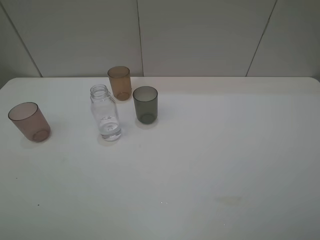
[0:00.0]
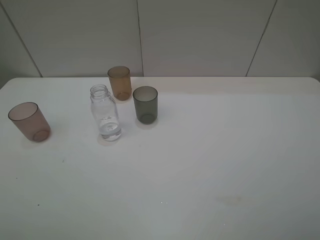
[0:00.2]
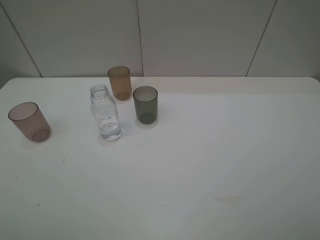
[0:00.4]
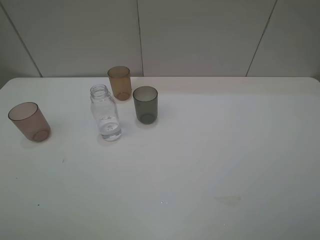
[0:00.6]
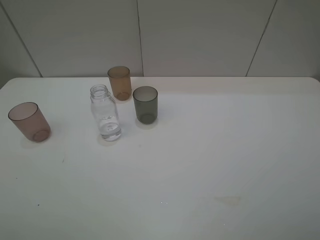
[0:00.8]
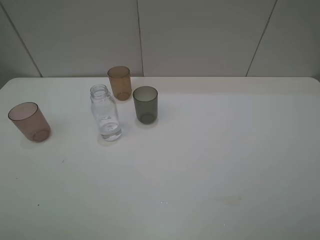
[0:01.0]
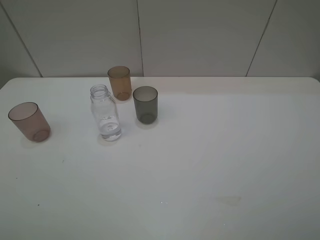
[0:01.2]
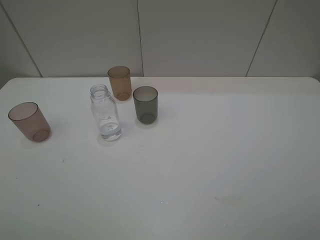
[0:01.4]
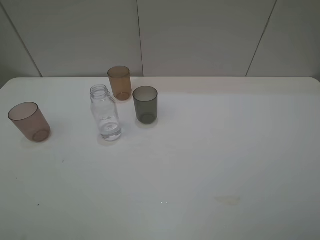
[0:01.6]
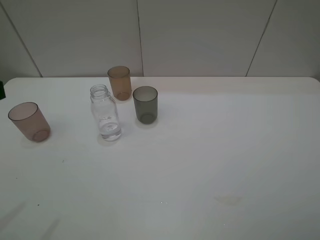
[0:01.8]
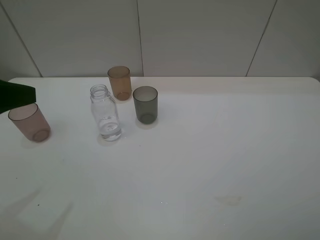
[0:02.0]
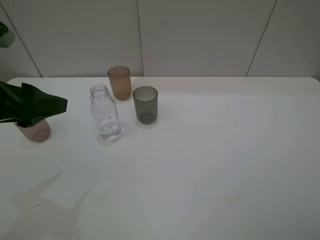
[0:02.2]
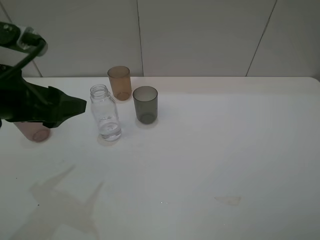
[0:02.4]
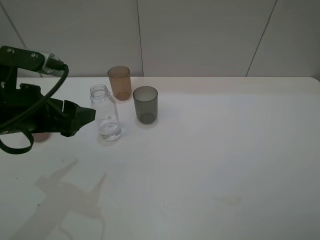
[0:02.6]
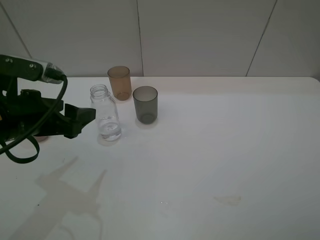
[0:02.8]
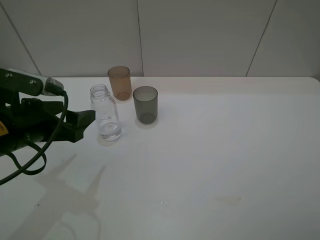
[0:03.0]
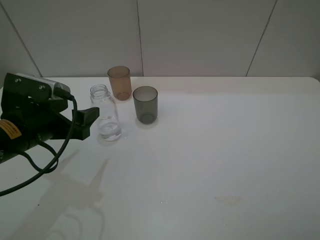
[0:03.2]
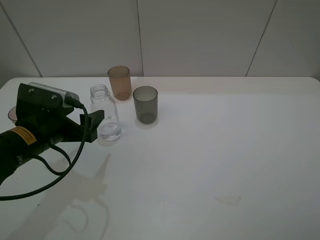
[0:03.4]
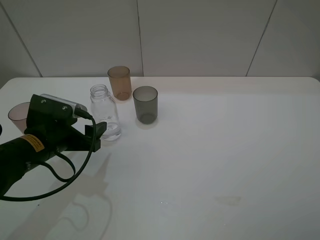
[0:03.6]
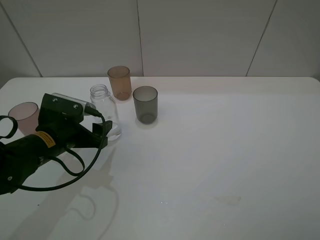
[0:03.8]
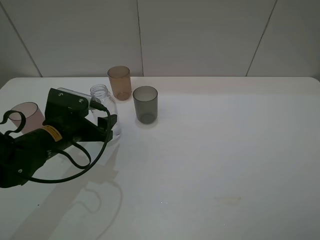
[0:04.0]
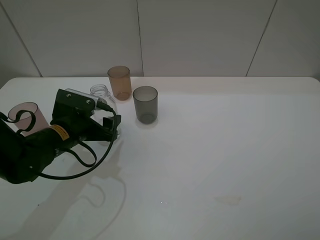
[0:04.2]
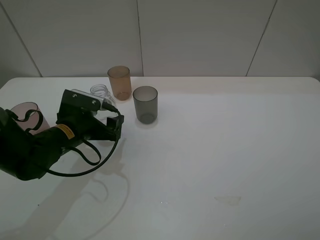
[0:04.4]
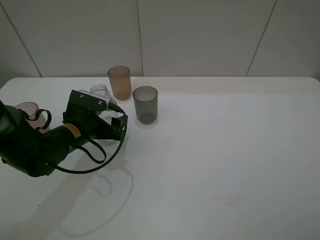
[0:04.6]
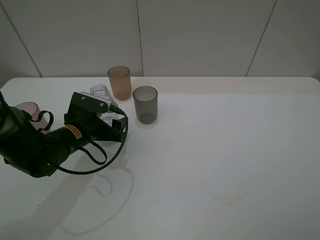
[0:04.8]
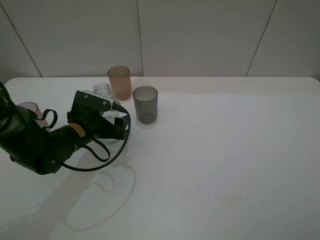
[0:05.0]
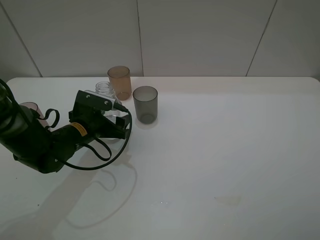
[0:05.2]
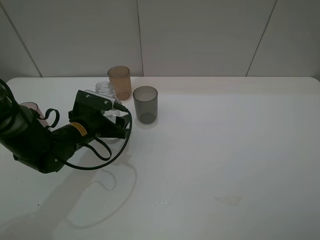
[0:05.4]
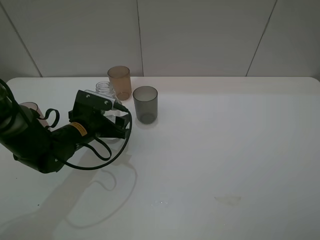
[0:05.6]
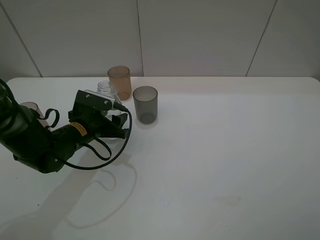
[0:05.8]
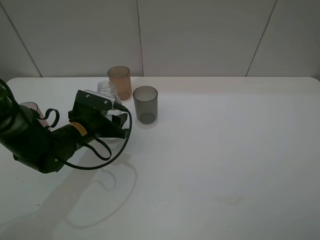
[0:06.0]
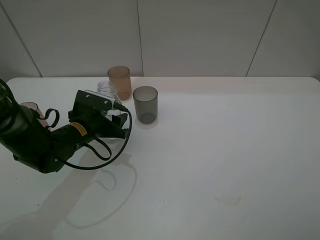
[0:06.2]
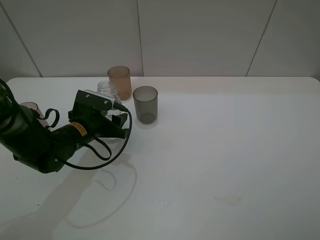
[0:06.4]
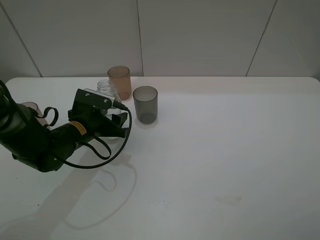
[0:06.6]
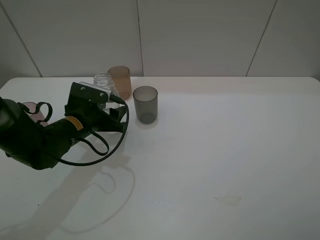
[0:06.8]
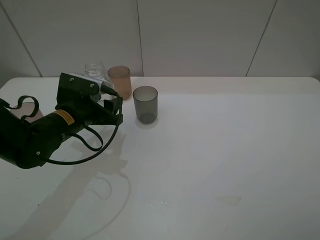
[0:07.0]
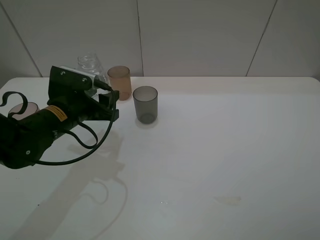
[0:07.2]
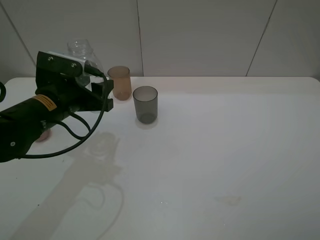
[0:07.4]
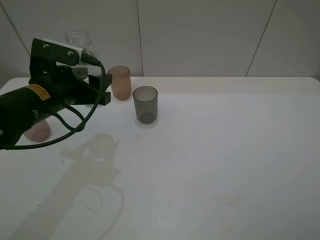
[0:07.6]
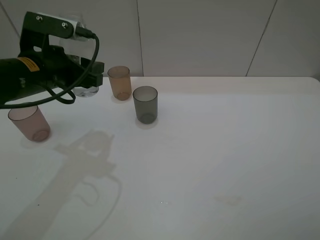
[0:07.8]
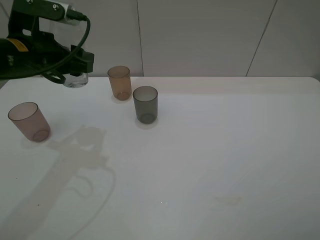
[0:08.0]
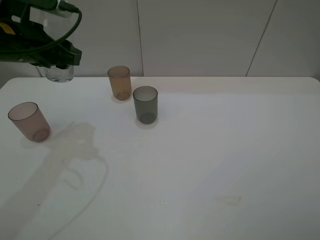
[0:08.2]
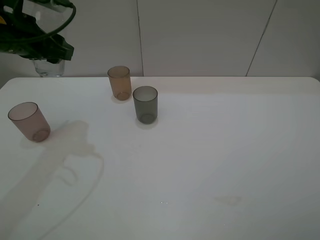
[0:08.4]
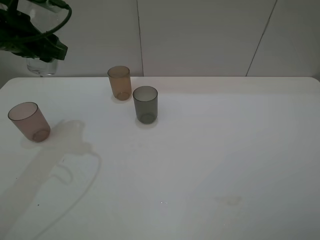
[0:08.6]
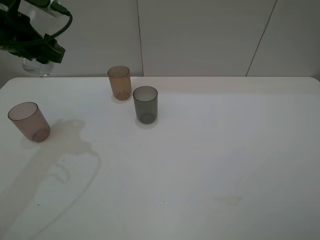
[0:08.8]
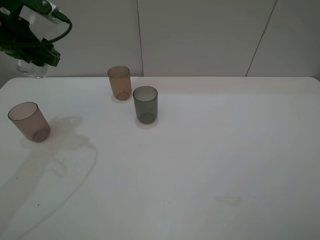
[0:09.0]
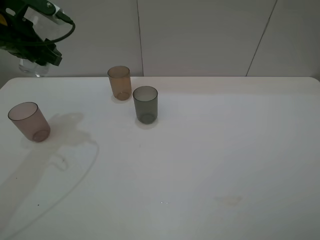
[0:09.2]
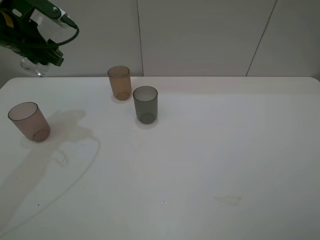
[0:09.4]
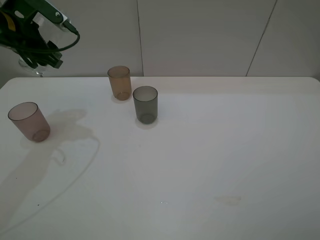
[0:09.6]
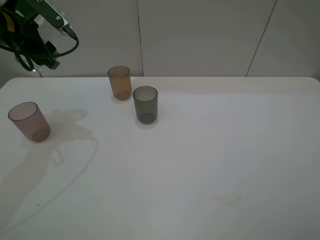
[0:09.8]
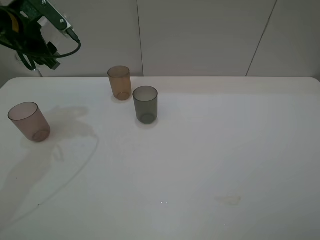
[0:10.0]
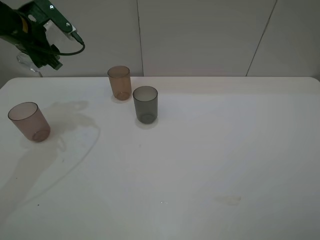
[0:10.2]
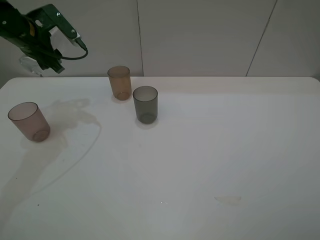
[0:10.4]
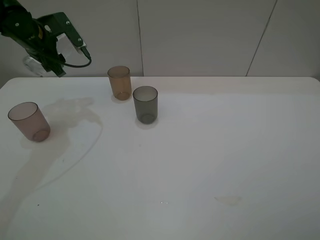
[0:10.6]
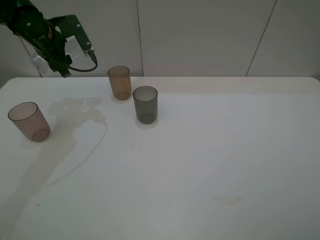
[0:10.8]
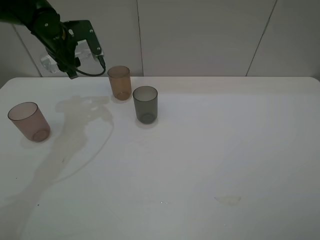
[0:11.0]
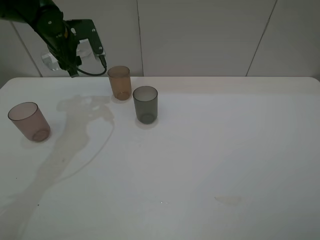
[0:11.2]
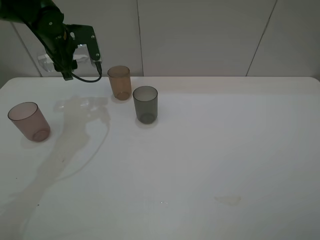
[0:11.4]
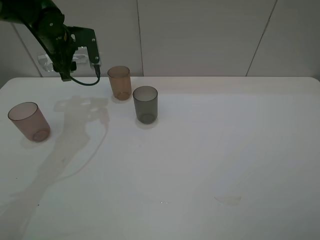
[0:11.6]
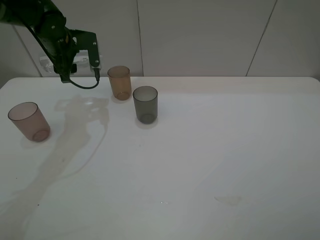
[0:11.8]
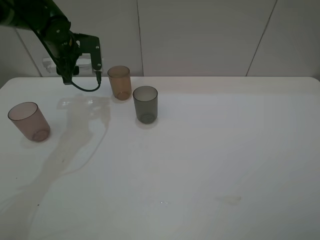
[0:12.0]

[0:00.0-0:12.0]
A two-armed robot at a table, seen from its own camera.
Task of the whole recording: pick up the bottle filled with water and pour water into the middle cup of the three cups.
Step, 0:00.0 to 0:05.2: Grasp the transparent bottle with the left gripper.
0:01.6 to 0:03.0: The left gripper moves downward, forward and to the right, approximately 20 cm.
0:03.0 to 0:04.4: The left gripper moves downward and forward, about 10 cm.
0:04.4 to 0:06.0: The left gripper closes.
0:06.0 to 0:07.6: The left gripper heads upward, covering about 10 cm.
0:07.6 to 0:09.0: The left gripper goes approximately 15 cm forward, to the left and upward.
0:09.0 to 0:10.4: The left gripper goes approximately 10 cm forward.
0:10.4 to 0:12.0: The left gripper heads to the right, covering some 5 cm.

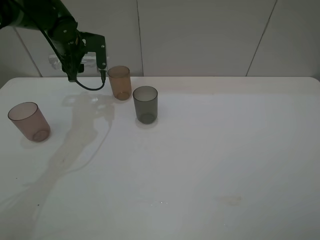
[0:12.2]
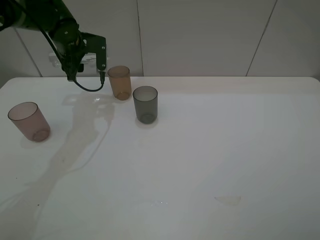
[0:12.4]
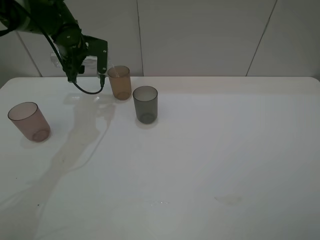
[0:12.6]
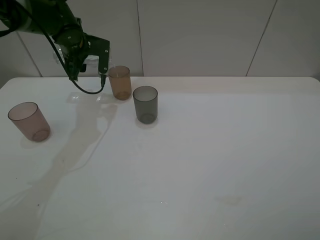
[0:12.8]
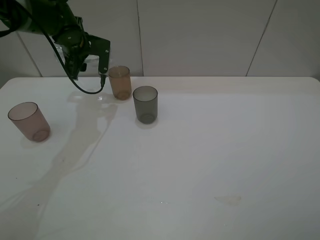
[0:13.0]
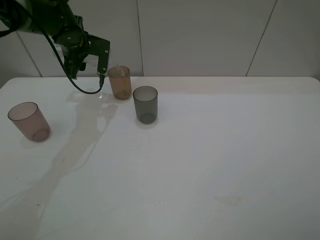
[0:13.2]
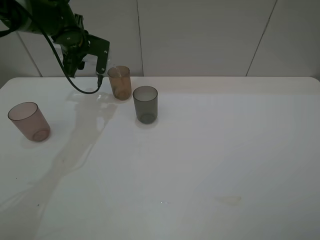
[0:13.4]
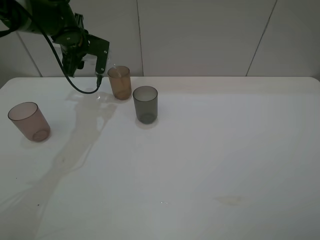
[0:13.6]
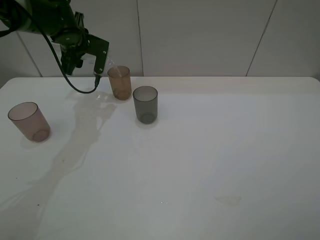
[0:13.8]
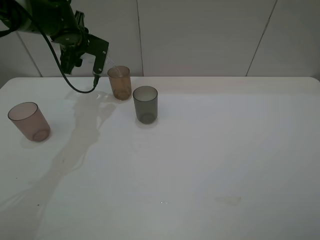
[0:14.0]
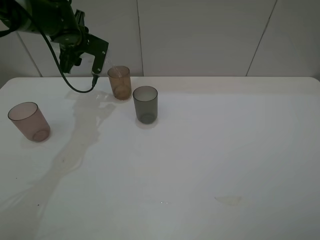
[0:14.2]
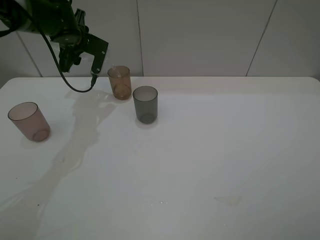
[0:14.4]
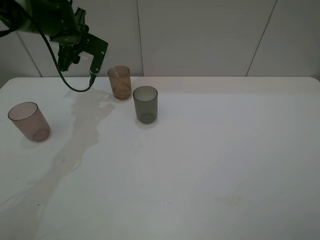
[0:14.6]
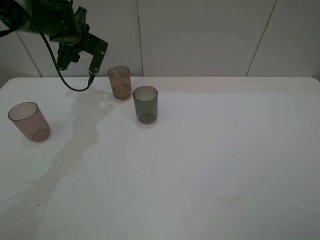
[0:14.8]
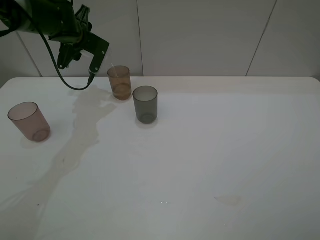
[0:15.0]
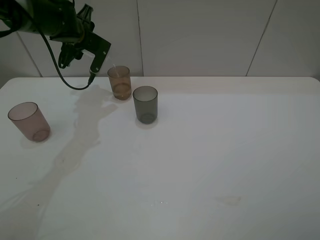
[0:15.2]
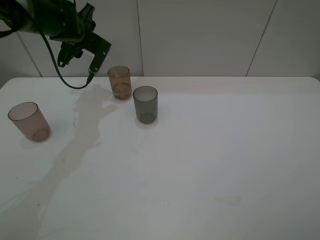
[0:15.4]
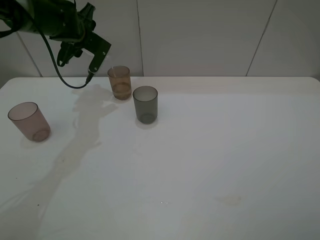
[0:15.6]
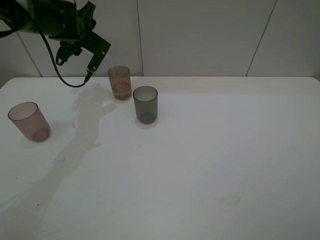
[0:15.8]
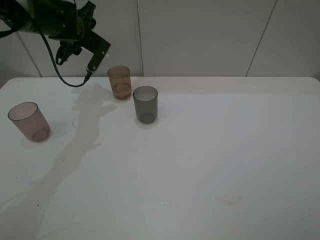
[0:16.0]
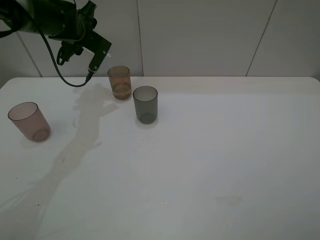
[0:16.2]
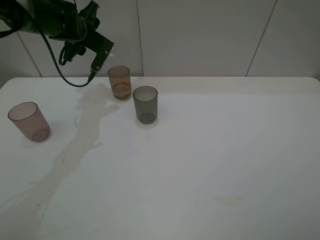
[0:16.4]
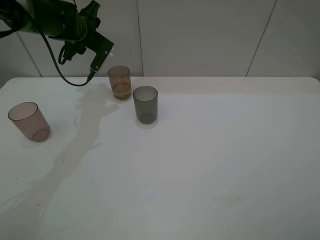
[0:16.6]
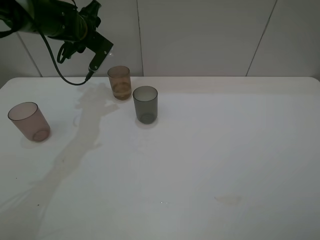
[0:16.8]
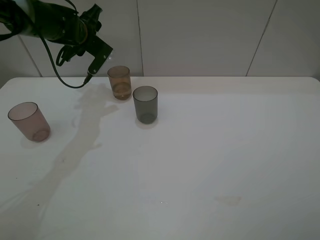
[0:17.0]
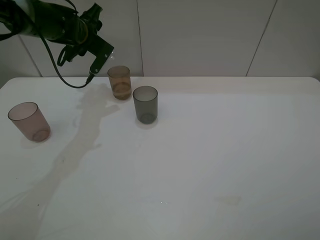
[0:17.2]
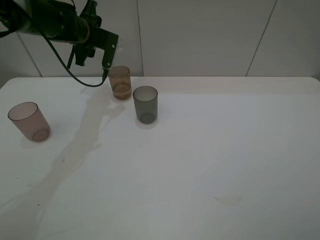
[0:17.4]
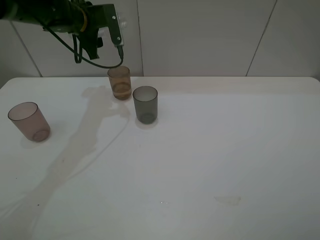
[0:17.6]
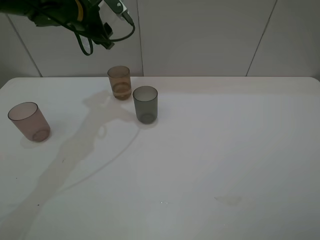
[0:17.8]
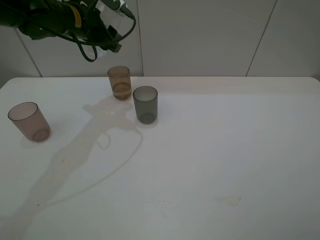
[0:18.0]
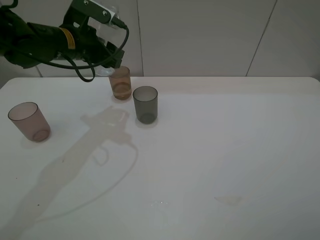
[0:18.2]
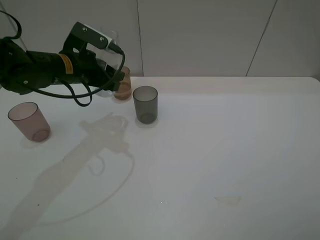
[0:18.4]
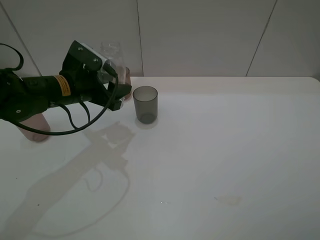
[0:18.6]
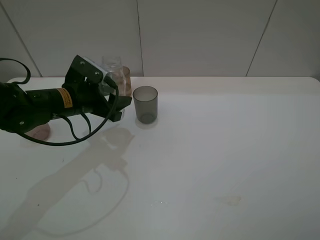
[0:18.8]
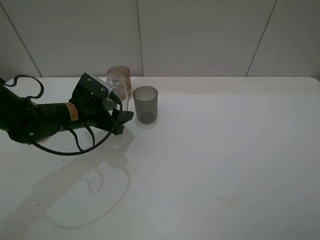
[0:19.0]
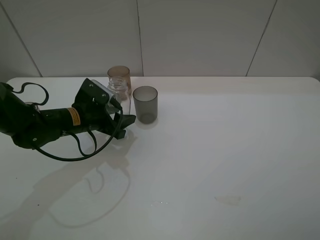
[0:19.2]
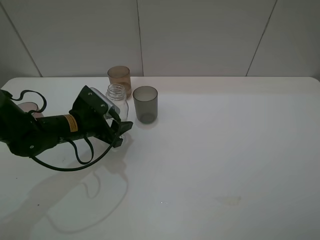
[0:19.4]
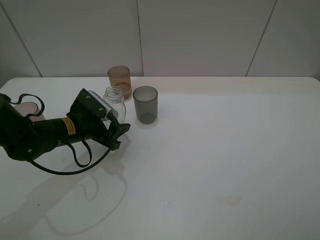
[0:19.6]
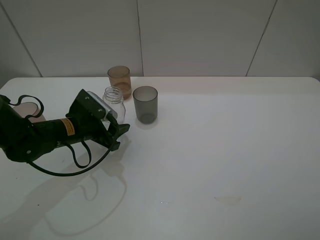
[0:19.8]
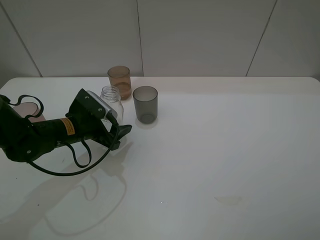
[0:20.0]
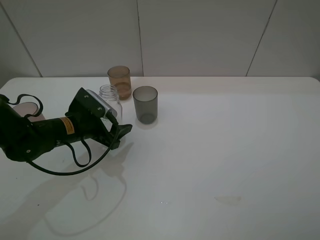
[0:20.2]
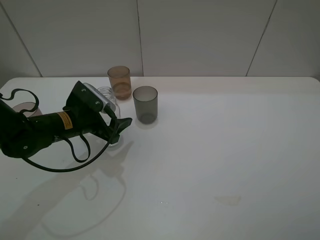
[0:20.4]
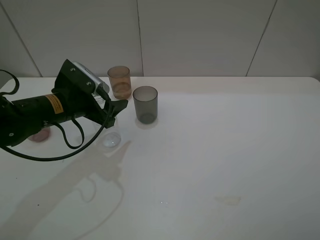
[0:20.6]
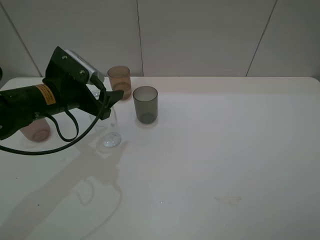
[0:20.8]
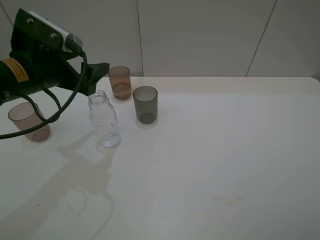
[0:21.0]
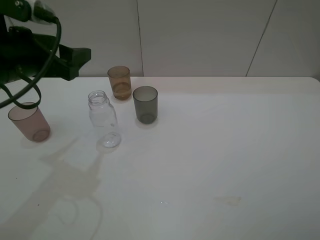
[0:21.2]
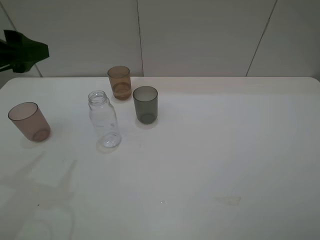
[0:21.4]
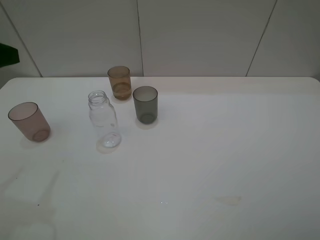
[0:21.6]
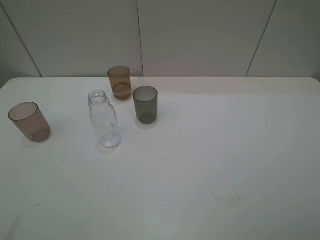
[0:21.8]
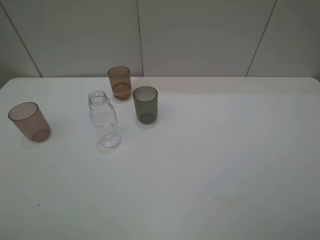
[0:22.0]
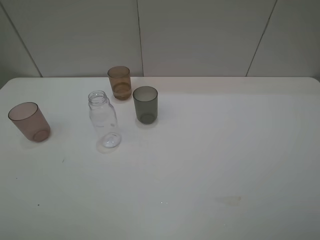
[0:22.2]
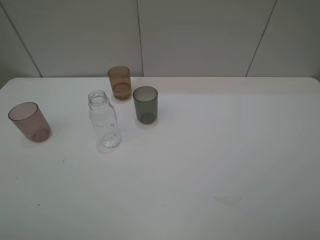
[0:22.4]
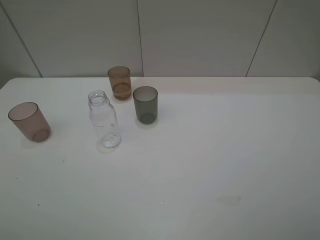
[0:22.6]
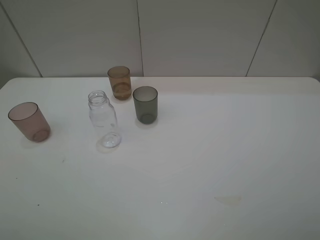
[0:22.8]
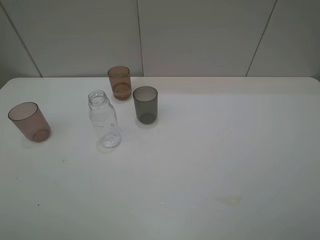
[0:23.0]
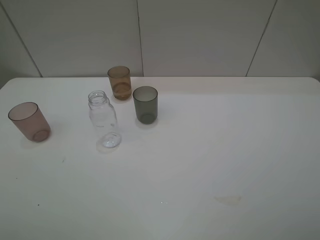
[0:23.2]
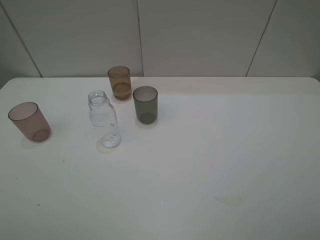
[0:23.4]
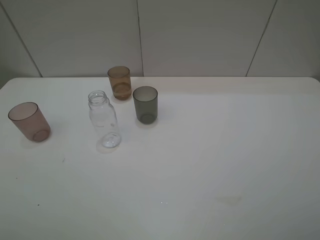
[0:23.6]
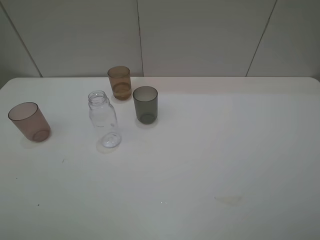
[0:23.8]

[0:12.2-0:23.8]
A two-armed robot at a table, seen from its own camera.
Task of the whole recording: pick up the bottle filled with water and pour water into the middle cup of the three cups.
Step, 0:12.4 to 0:21.0: Place the transparent bottle with the left gripper.
0:12.2 to 0:13.6: The grippers stay close to where they were, moving slightly.
0:13.6 to 0:15.0: The grippers stay close to where they were, moving slightly.
0:15.0 to 0:16.6: The grippers stay close to where they were, moving slightly.
0:16.6 to 0:18.0: The left gripper travels backward by roughly 5 cm.
0:18.0 to 0:19.4: The left gripper shifts about 20 cm downward and backward.
0:19.4 to 0:21.0: The left gripper shifts some 15 cm upward, and opens.
0:21.0 to 0:22.4: The left gripper moves backward, approximately 30 cm.
